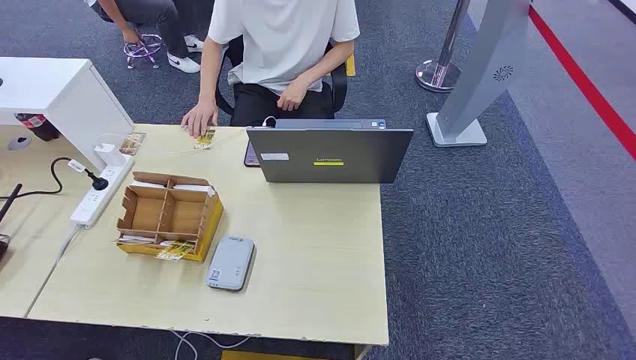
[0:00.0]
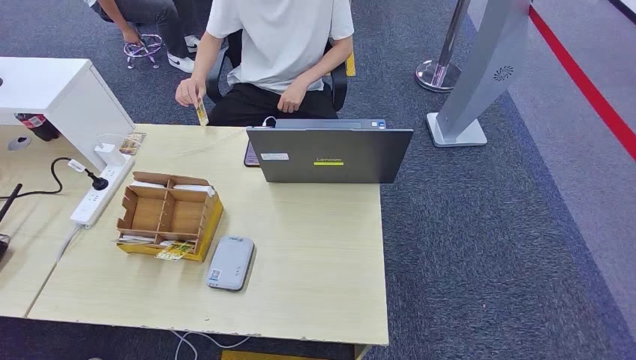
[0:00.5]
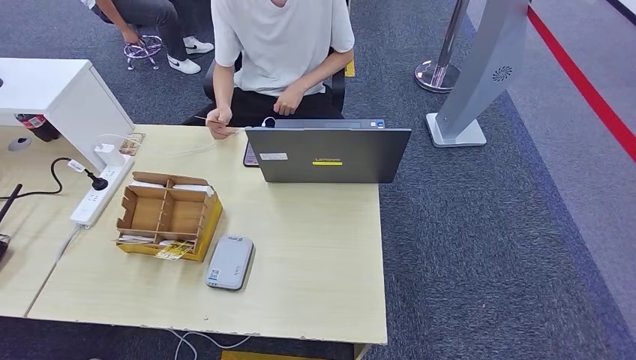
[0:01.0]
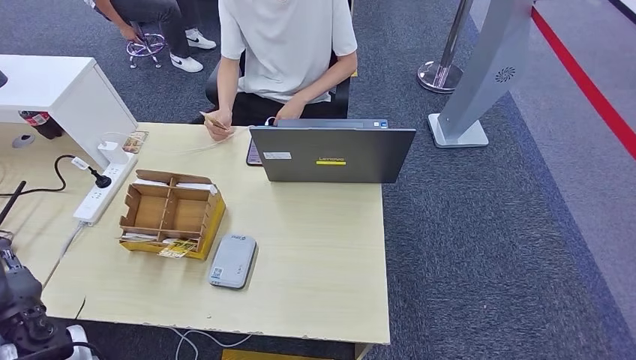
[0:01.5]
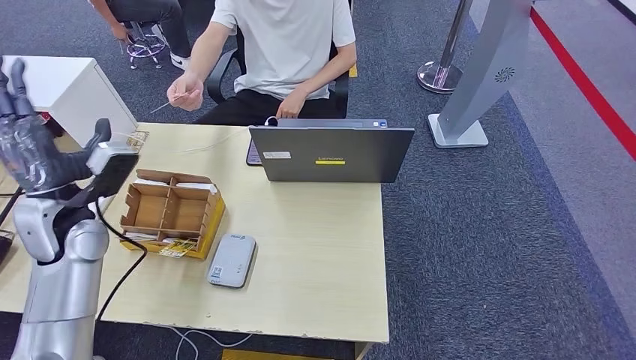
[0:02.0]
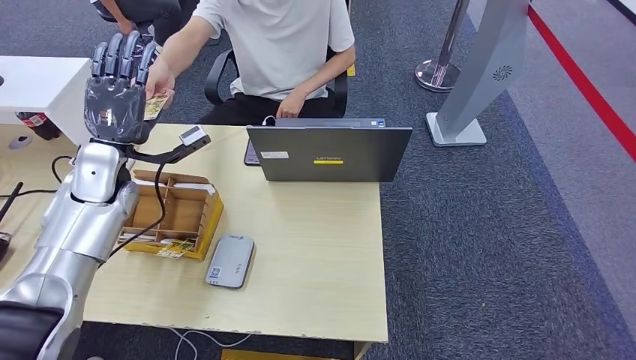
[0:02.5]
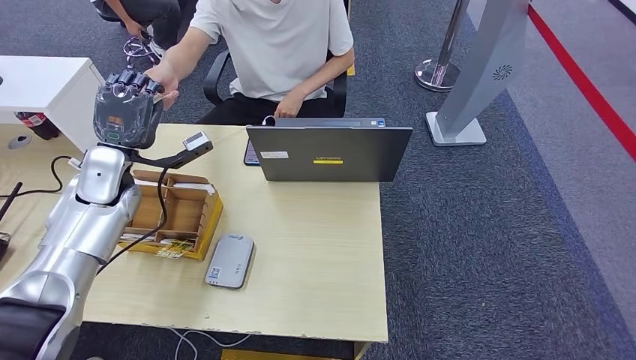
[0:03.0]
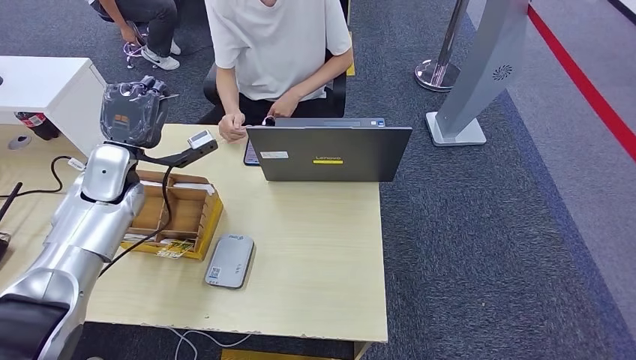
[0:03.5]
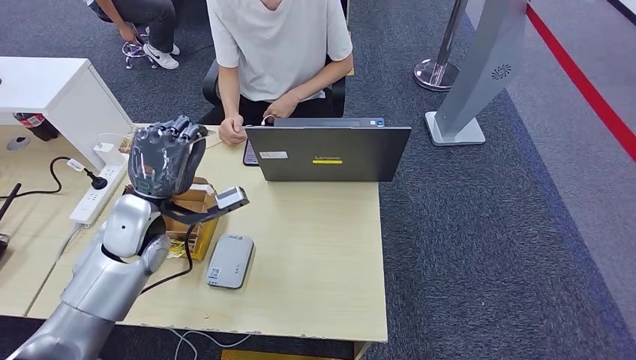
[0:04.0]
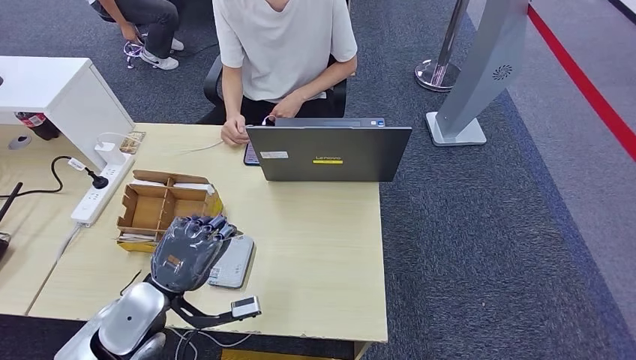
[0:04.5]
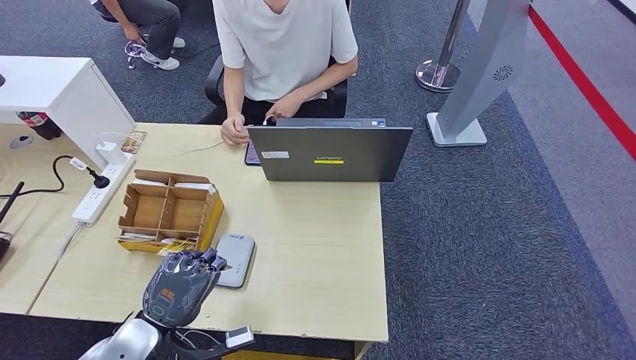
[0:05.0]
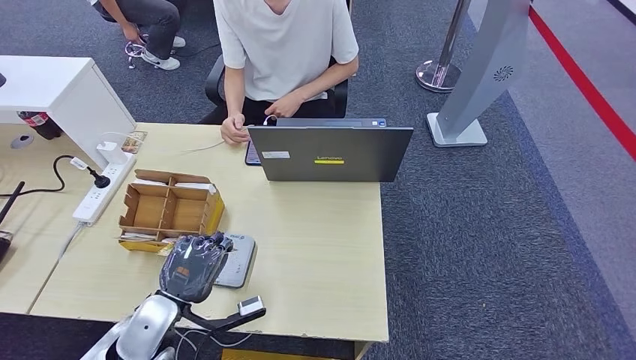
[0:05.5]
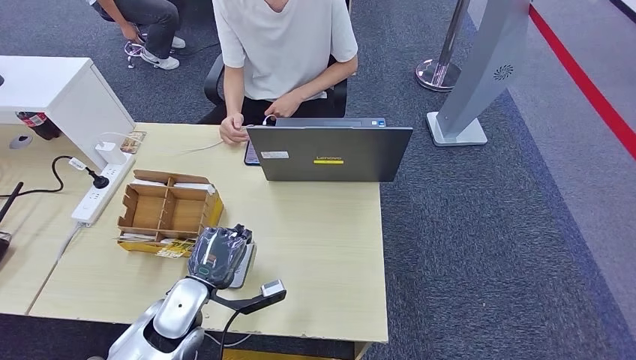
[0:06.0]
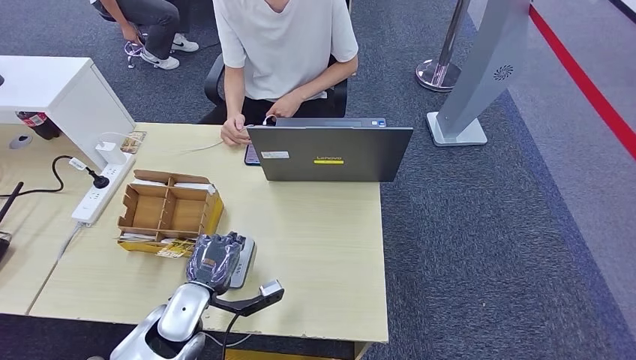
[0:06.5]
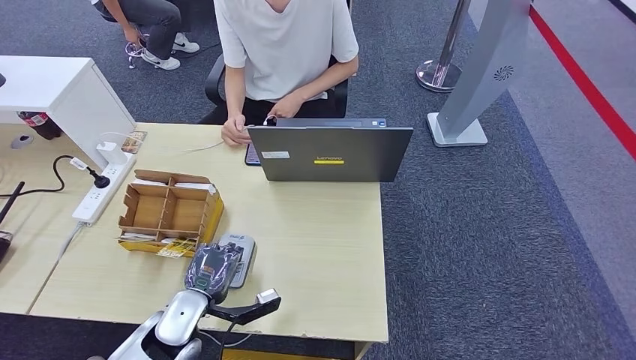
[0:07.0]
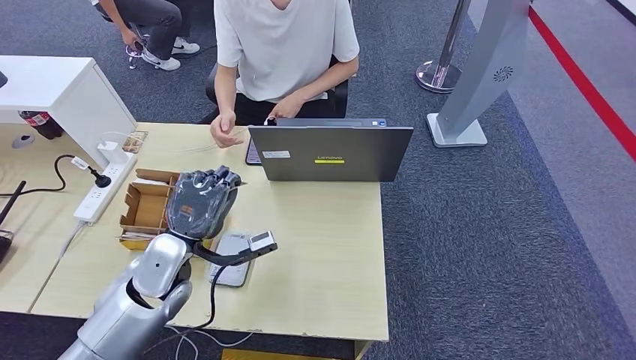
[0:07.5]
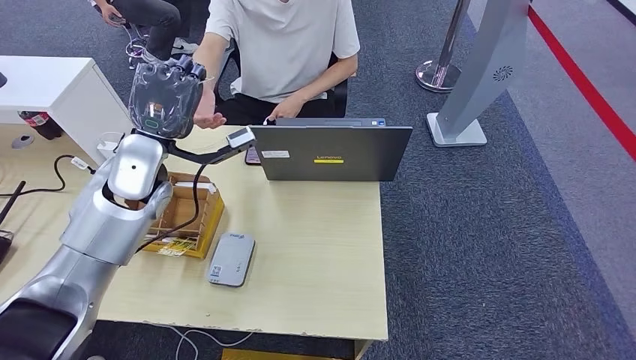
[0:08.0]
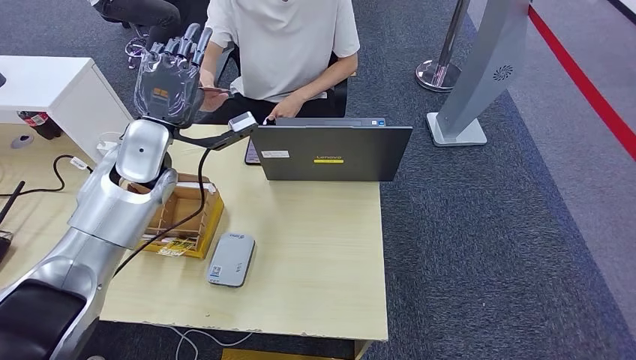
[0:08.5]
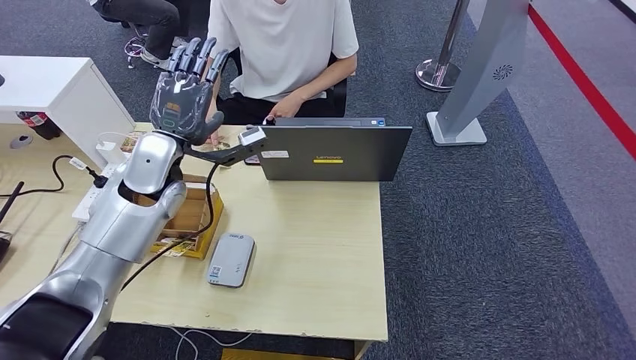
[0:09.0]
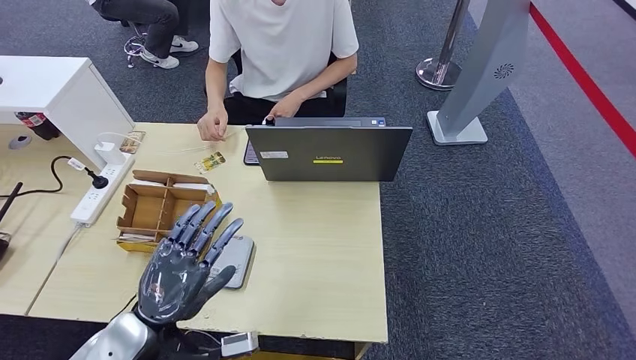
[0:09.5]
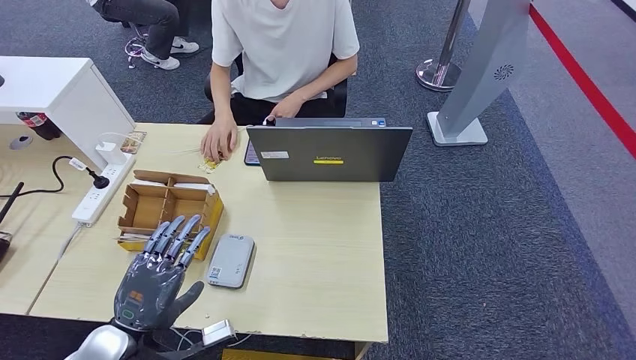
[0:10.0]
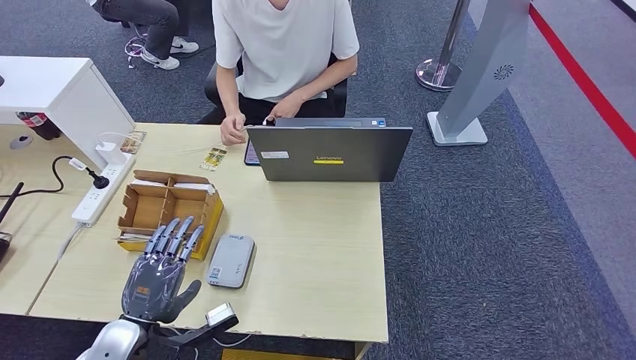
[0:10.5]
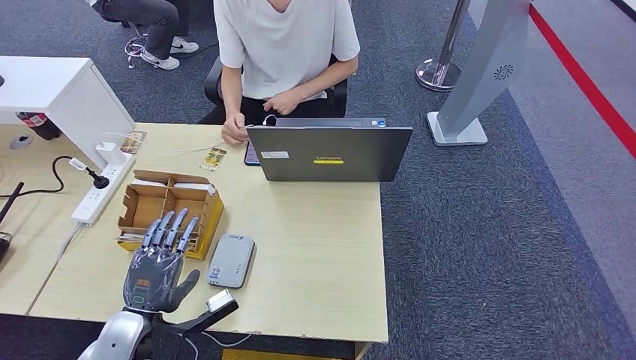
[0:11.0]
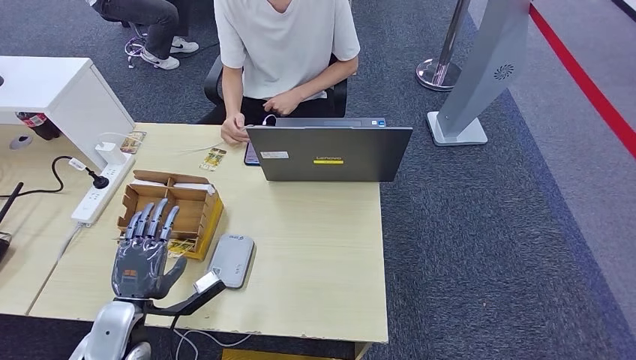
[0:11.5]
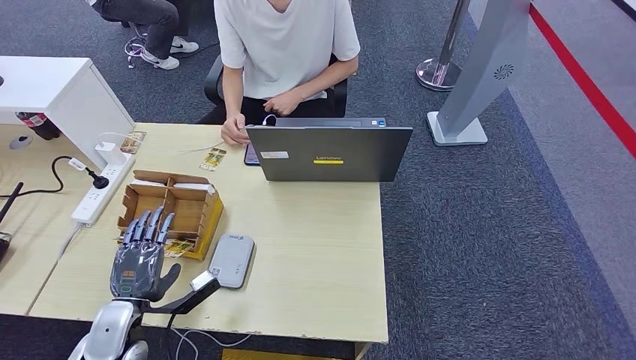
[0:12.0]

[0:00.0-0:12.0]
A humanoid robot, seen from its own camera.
Step, 0.0 to 3.0 s: Take the ID card from the person's hand.
Step, 3.5 to 6.5 s: Place the ID card on the card reader.
Step, 7.0 to 9.5 s: Hand the ID card to the person.
4.0 to 6.0 s: The left hand travels downward, backward and to the right by roughly 15 cm.
6.0 to 8.0 s: The left hand heads upward and forward, covering approximately 25 cm.
8.0 to 10.0 s: The left hand is displaced backward and downward by some 30 cm.
10.0 to 12.0 s: The left hand shifts about 10 cm downward and to the left.

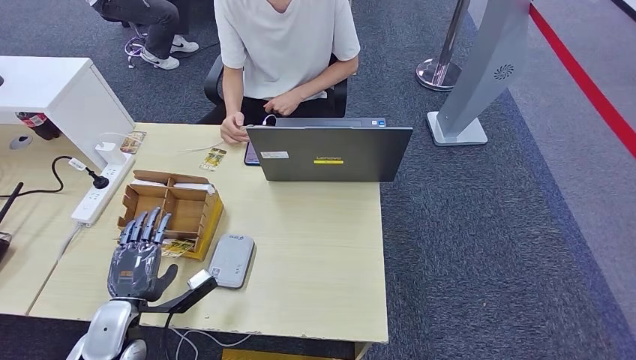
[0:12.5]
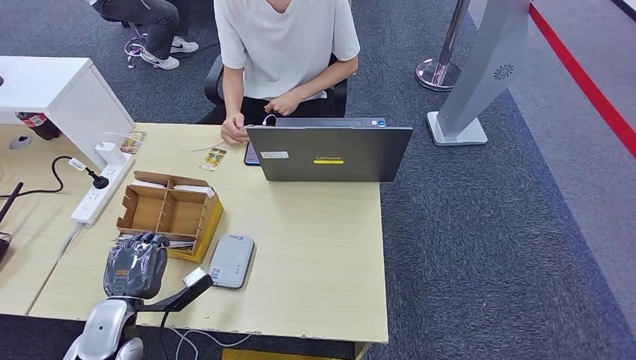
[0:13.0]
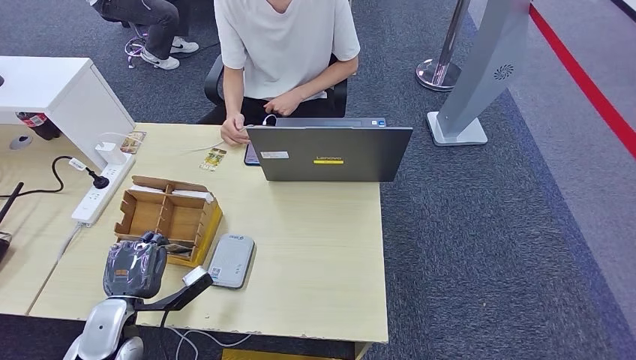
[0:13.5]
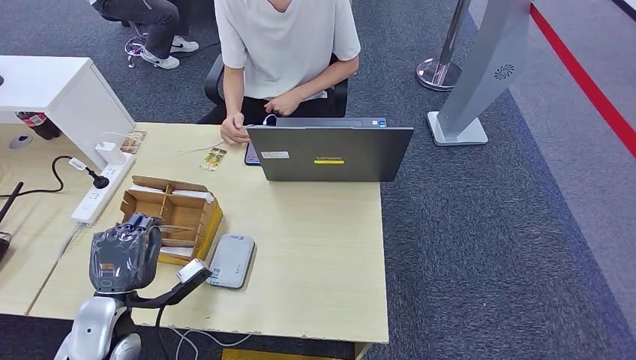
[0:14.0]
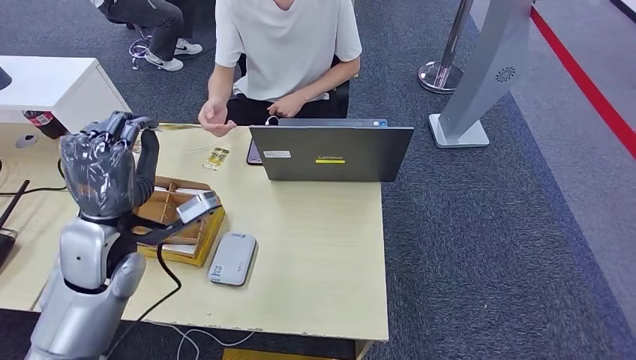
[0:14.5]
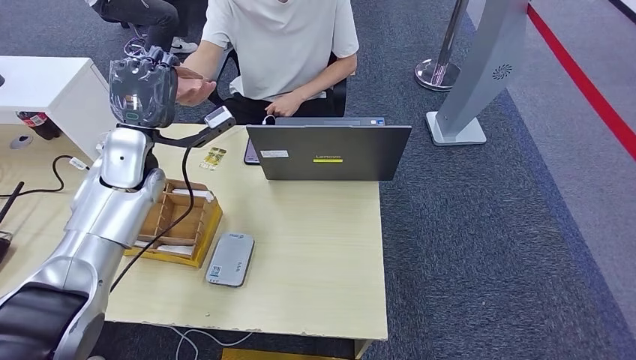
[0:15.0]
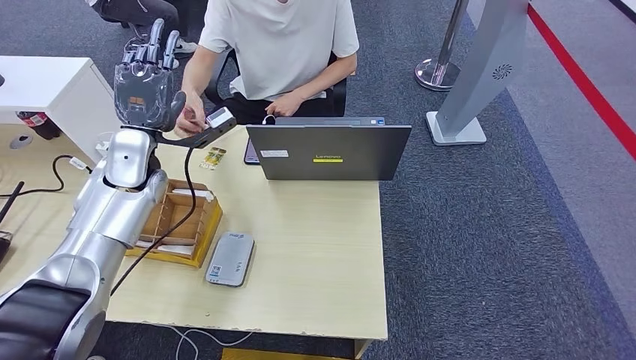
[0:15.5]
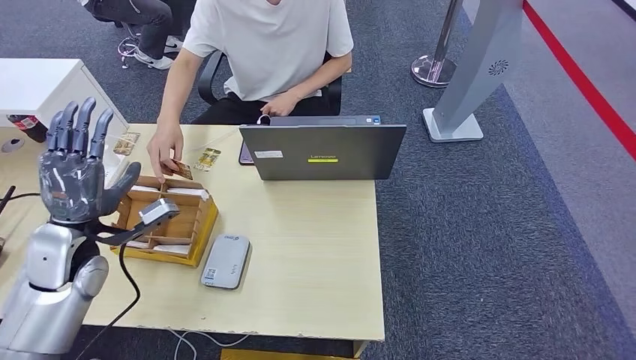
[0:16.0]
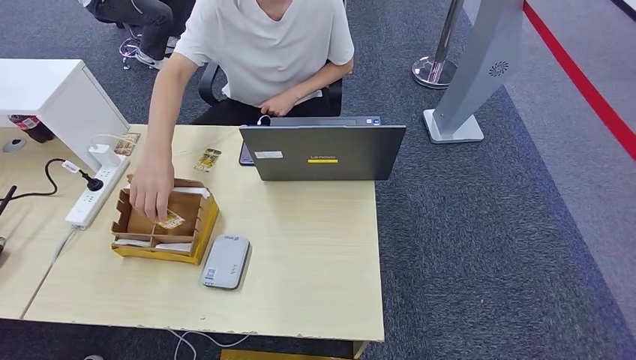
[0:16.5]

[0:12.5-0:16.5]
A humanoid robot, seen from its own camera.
Step, 14.5 to 16.0 s: Hand the room key to the person.
12.5 to 14.5 s: The left hand travels upward and forward by roughly 20 cm.

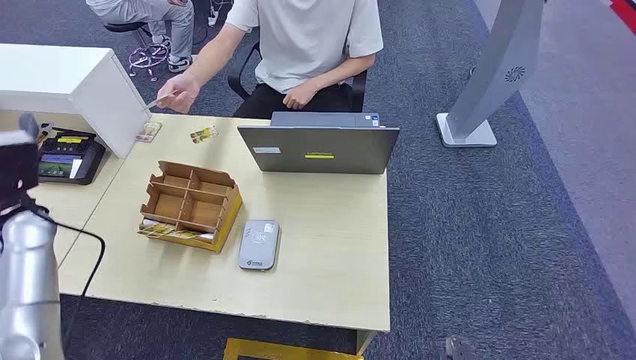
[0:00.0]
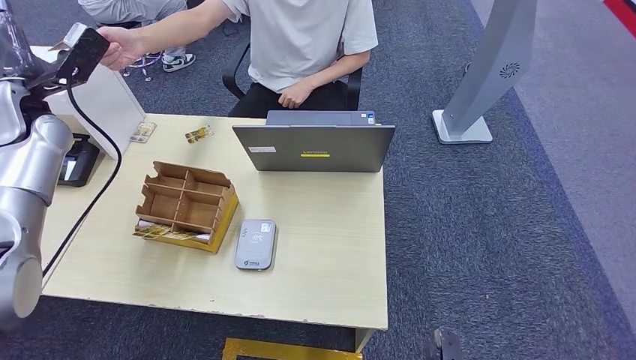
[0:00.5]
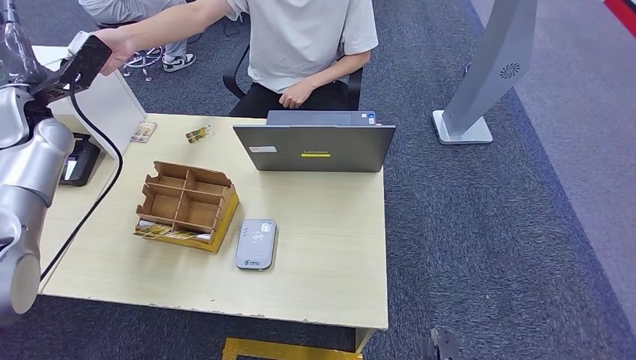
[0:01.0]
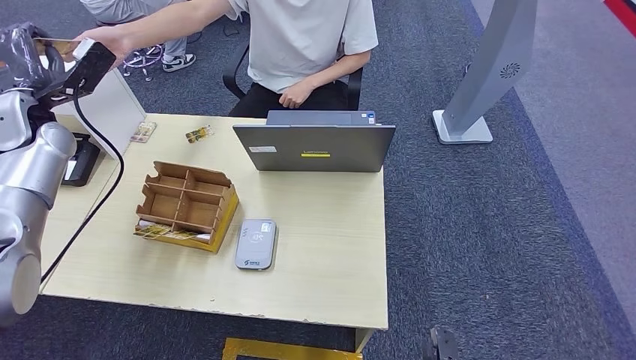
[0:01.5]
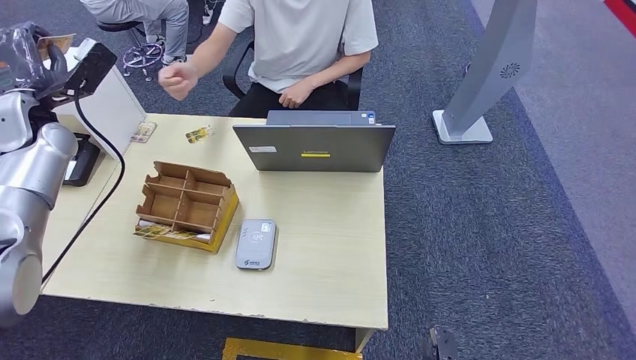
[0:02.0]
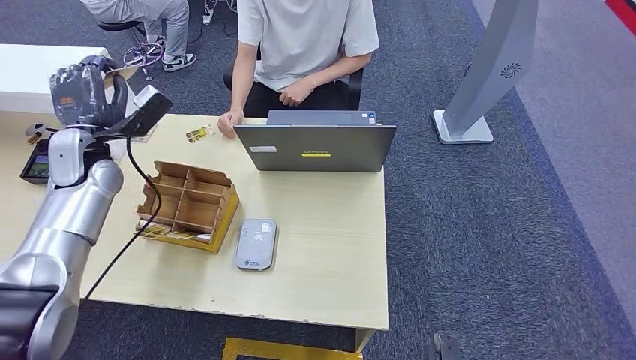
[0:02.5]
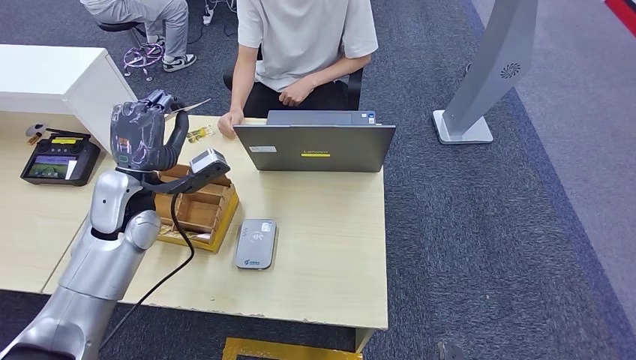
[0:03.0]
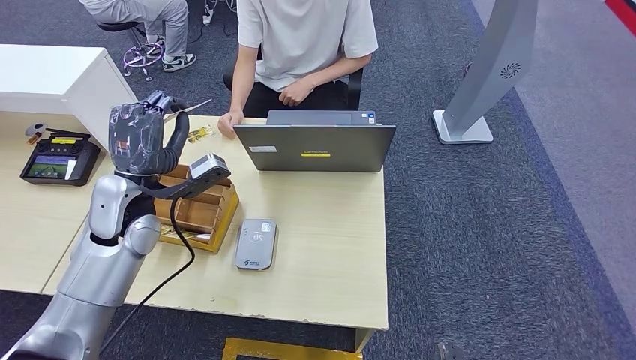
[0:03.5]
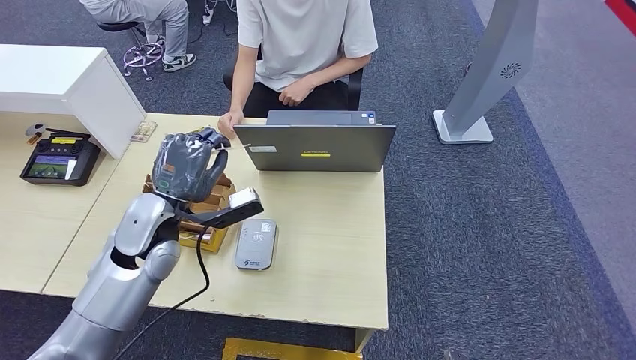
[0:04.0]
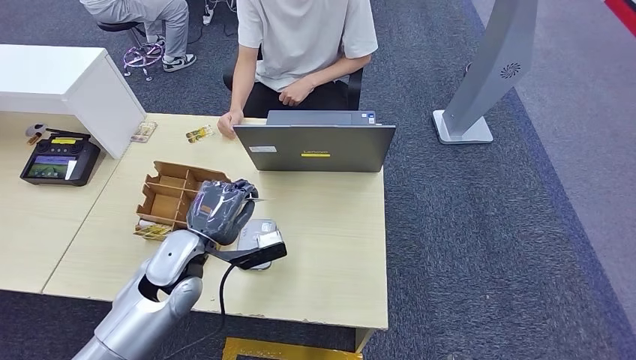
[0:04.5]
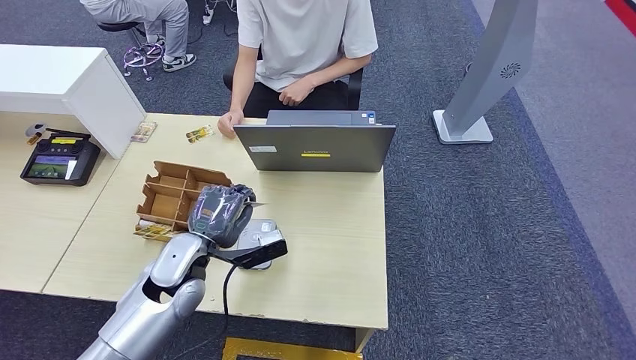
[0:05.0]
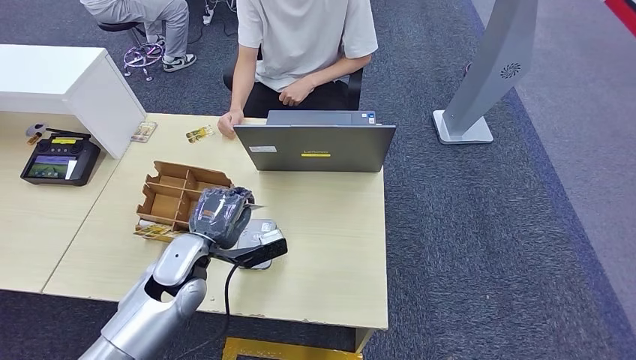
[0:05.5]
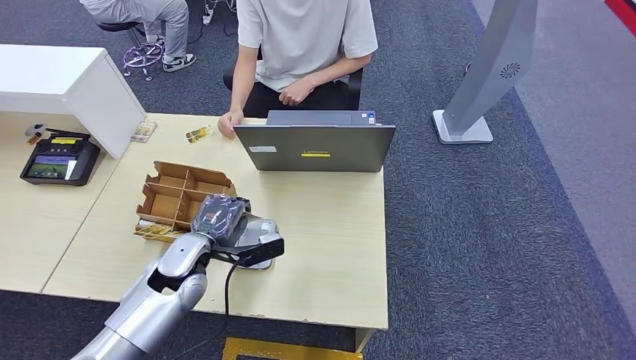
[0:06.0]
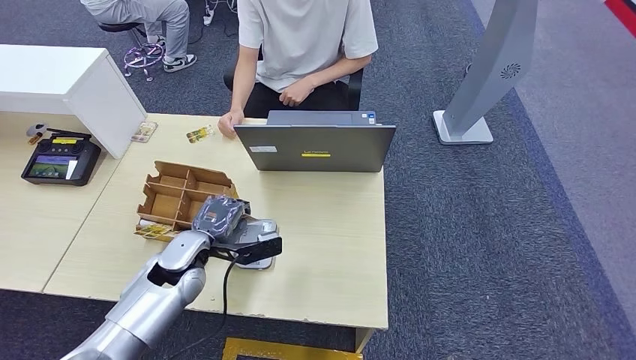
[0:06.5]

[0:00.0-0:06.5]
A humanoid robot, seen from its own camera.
Step, 0.0 to 2.0 s: Take the ID card from the person's hand.
2.0 to 4.5 s: The left hand shifts some 30 cm to the right, downward and backward.
4.5 to 6.5 s: The left hand moves some 5 cm.
